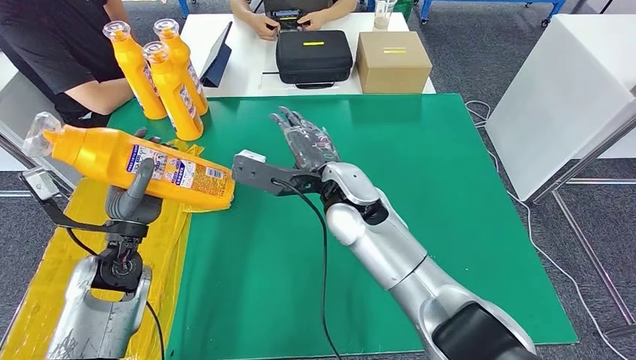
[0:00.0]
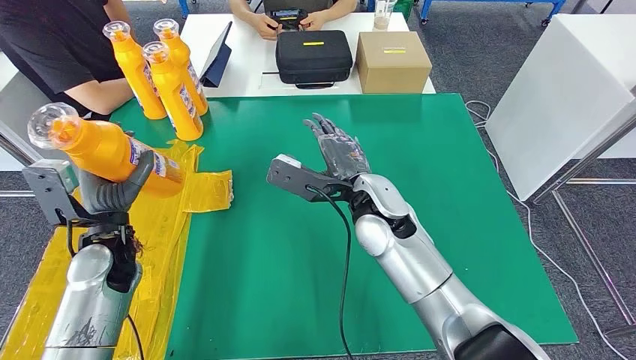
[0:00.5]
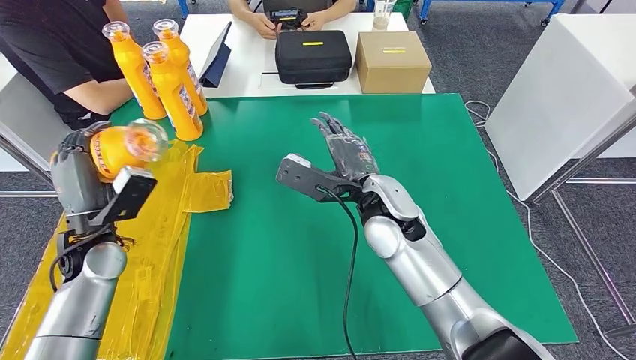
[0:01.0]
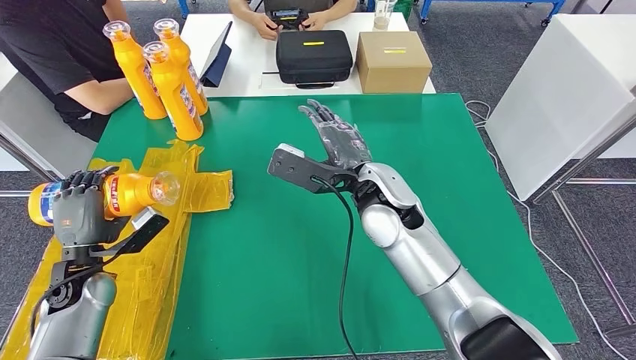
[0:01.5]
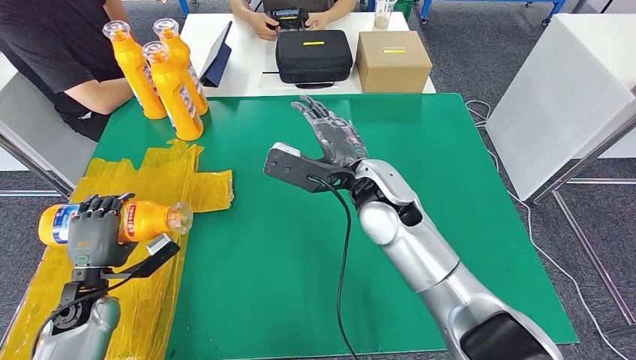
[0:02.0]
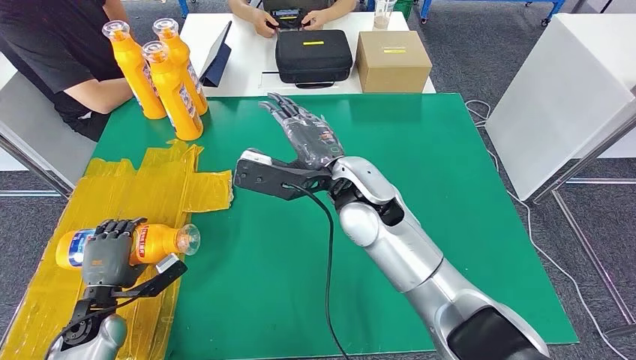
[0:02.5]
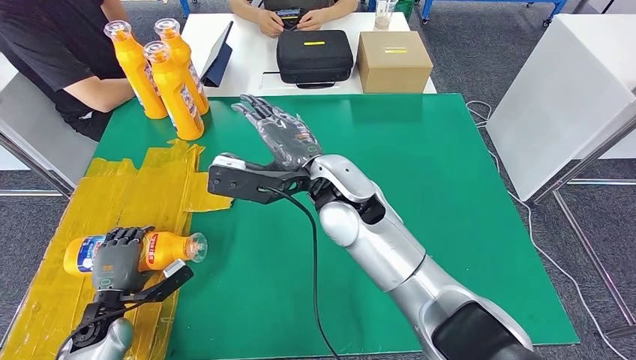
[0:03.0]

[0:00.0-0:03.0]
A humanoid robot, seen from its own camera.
Step, 0:00.0 to 0:03.0: Flip the bottle to face forward.

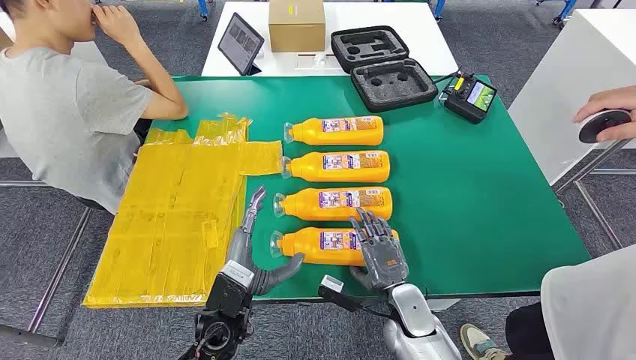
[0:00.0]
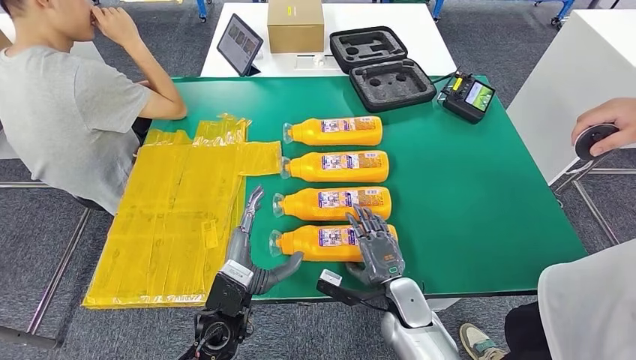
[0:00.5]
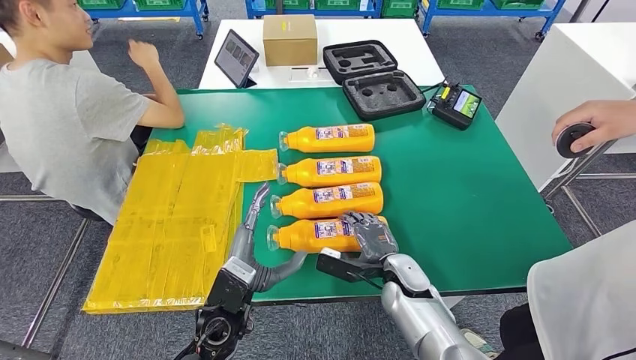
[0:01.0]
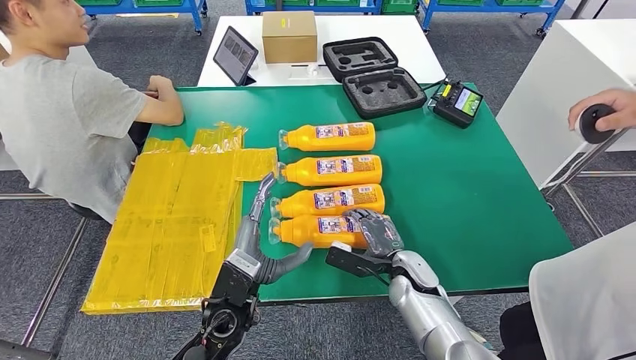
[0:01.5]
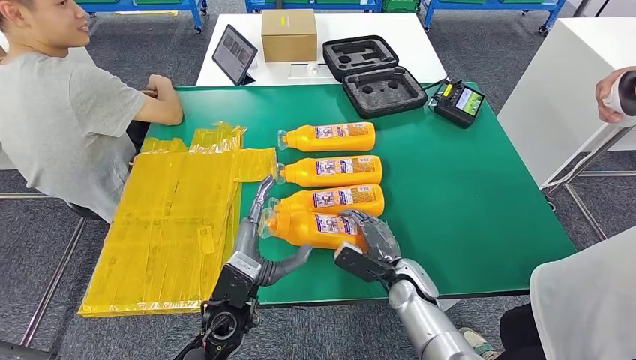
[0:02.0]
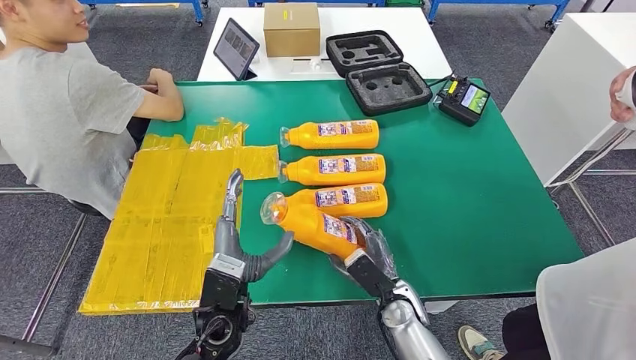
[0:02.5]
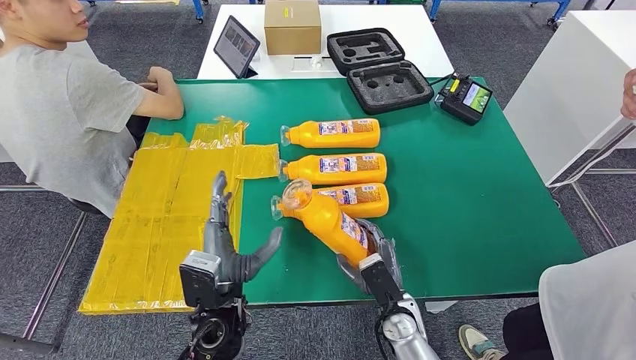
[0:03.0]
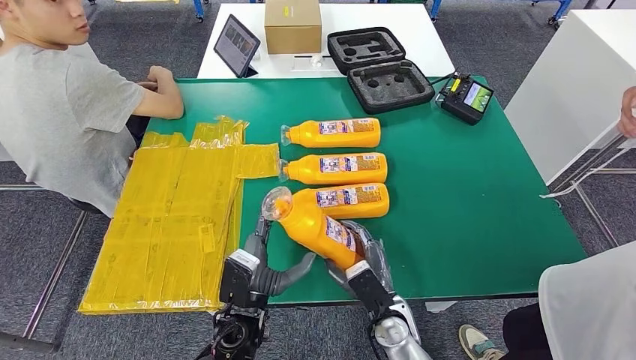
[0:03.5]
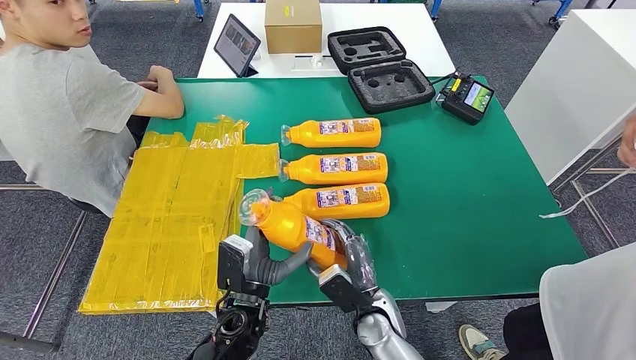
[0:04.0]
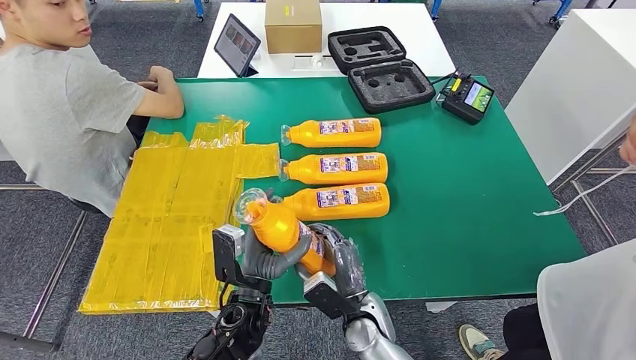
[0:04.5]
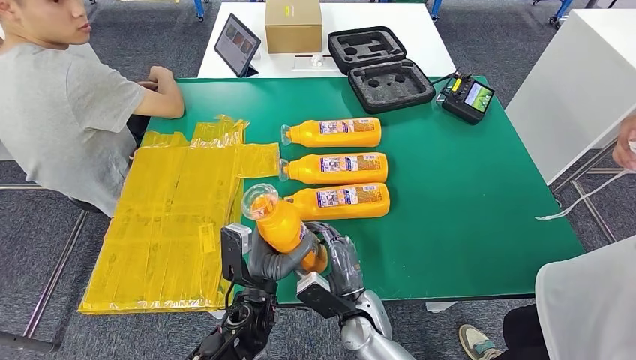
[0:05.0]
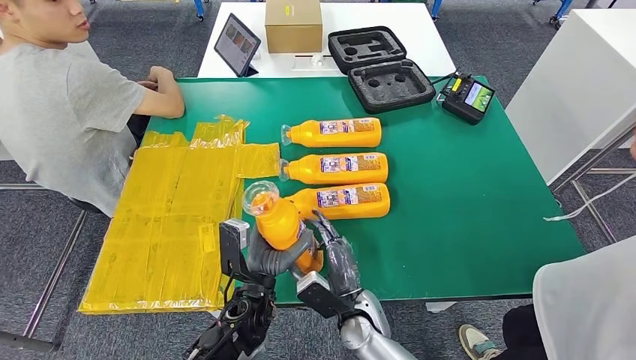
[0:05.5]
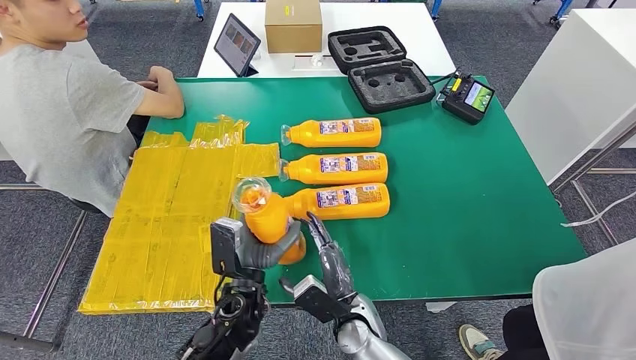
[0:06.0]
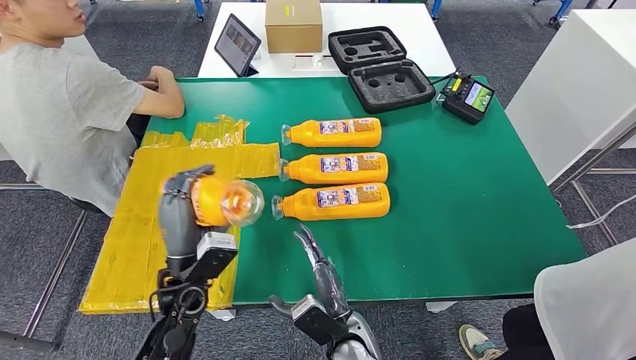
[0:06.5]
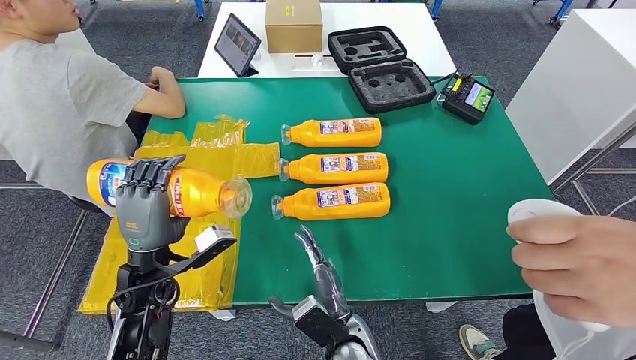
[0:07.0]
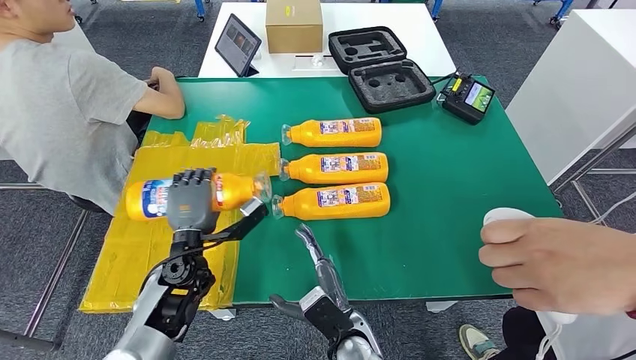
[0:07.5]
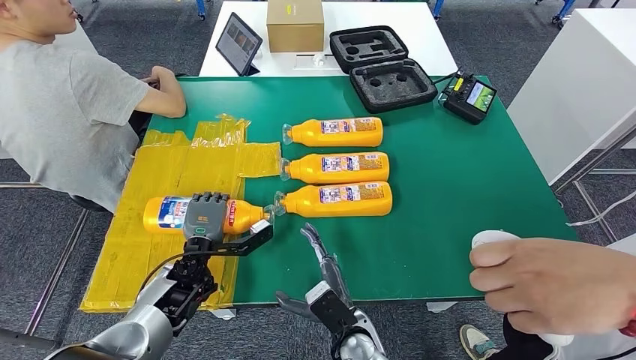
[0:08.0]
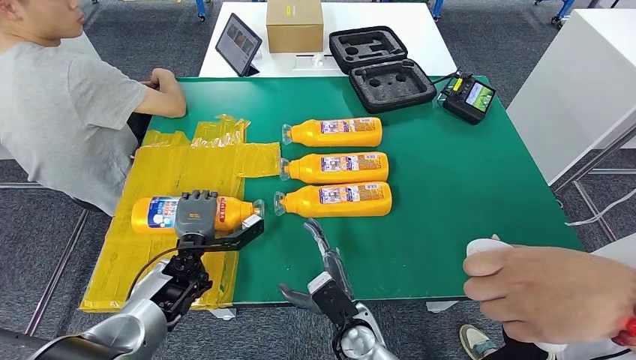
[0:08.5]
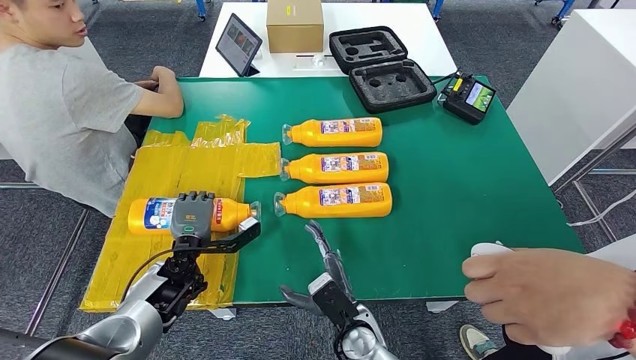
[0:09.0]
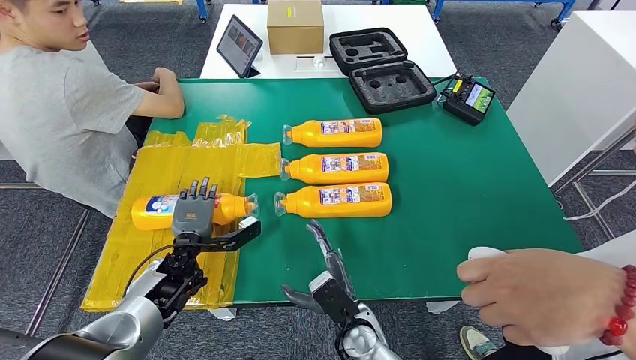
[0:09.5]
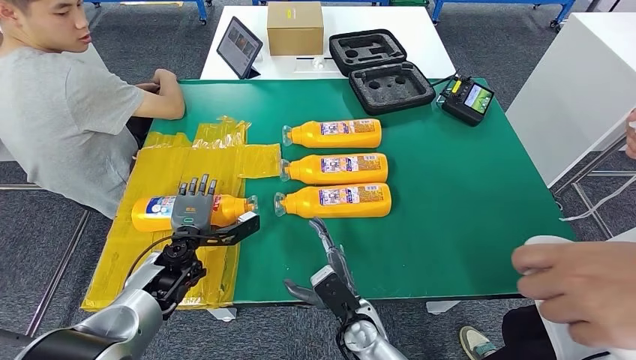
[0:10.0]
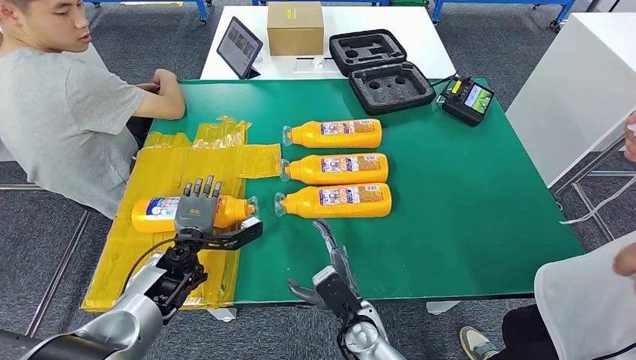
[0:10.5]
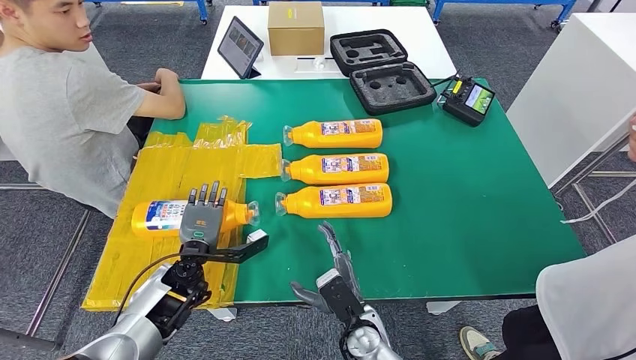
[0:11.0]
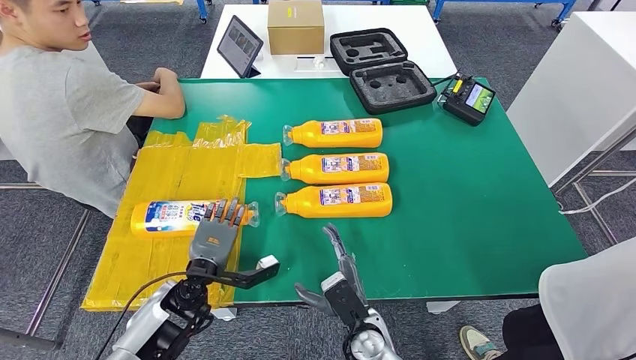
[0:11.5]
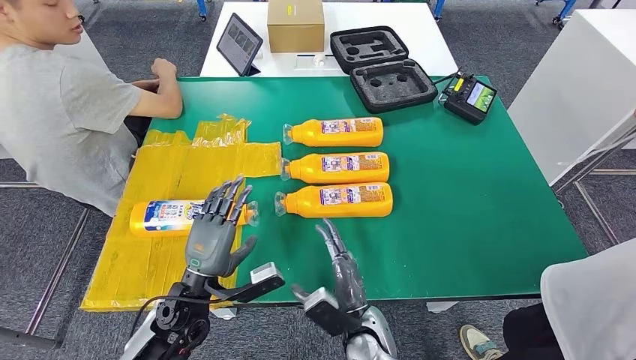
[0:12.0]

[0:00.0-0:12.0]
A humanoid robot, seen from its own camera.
Step, 0:00.0 to 0:03.5: Take the bottle from the table.
Step, 0:04.5 to 0:09.5: Flip the bottle to face forward.
0:04.0 to 0:06.0: There are only small adjustments of the hands.

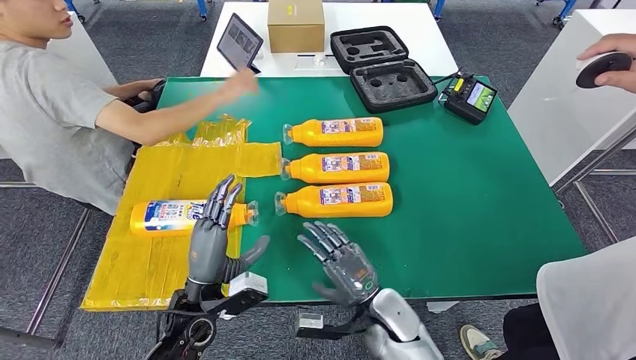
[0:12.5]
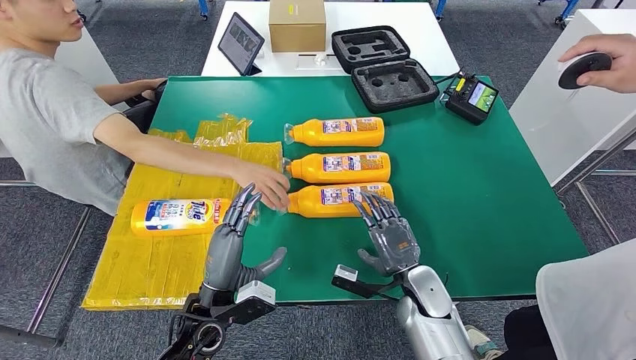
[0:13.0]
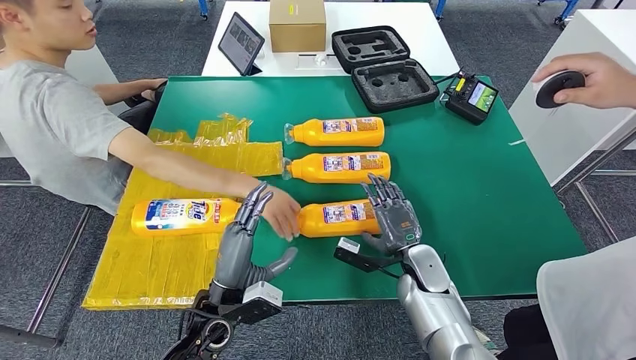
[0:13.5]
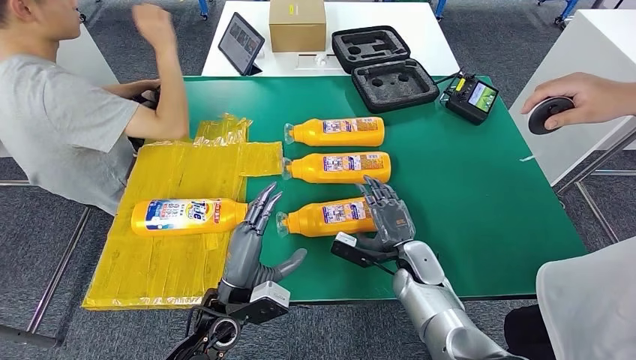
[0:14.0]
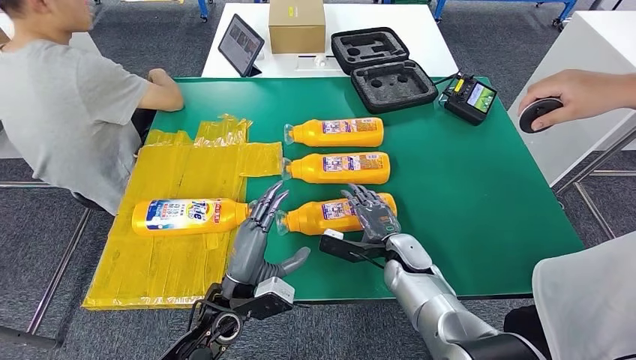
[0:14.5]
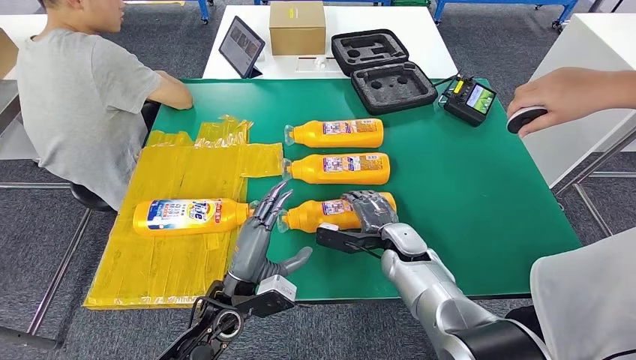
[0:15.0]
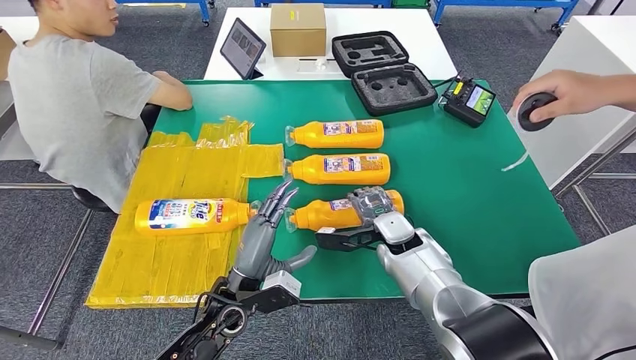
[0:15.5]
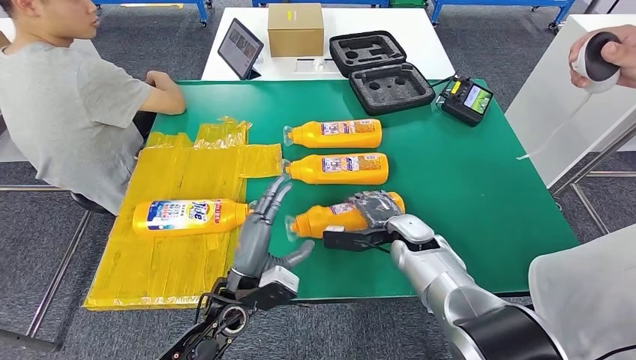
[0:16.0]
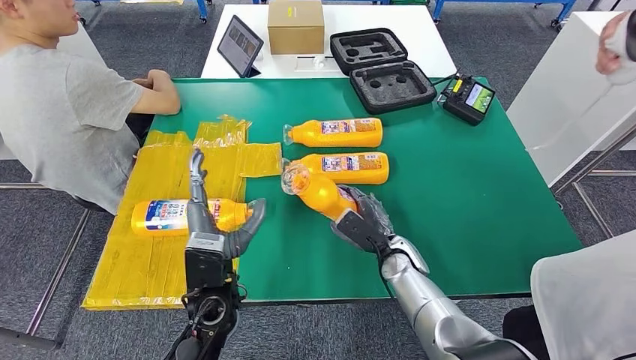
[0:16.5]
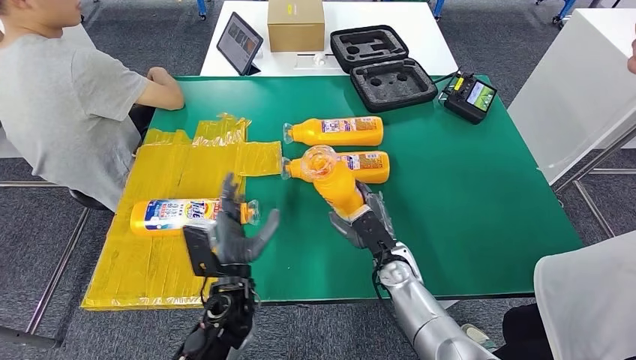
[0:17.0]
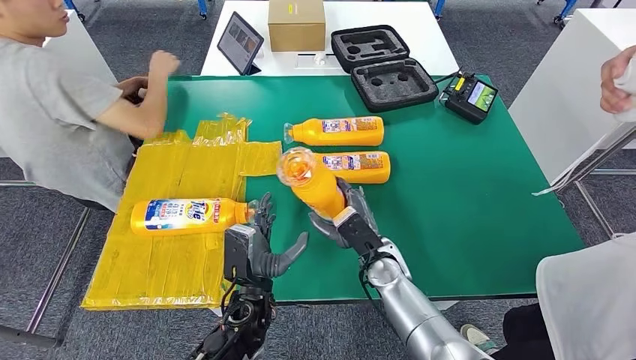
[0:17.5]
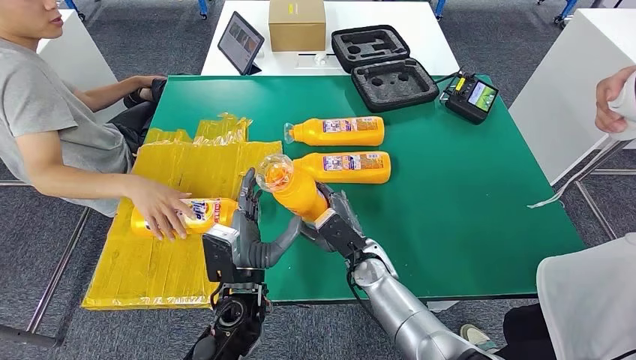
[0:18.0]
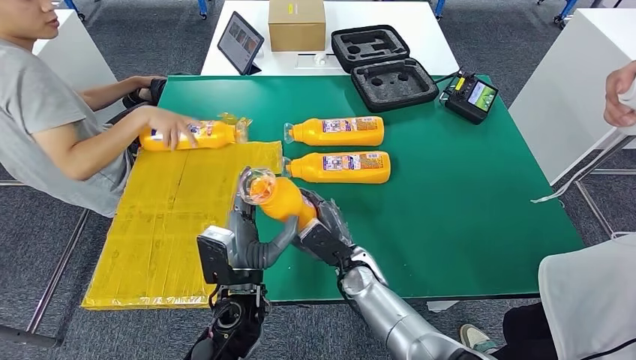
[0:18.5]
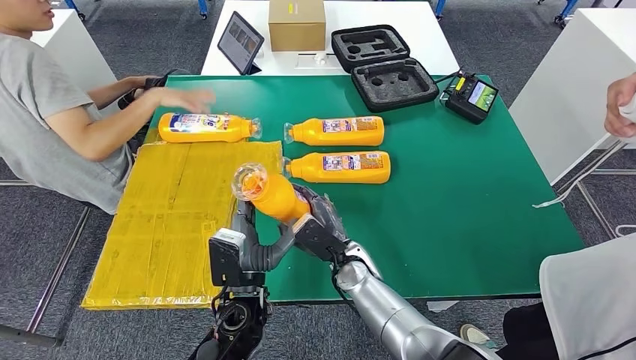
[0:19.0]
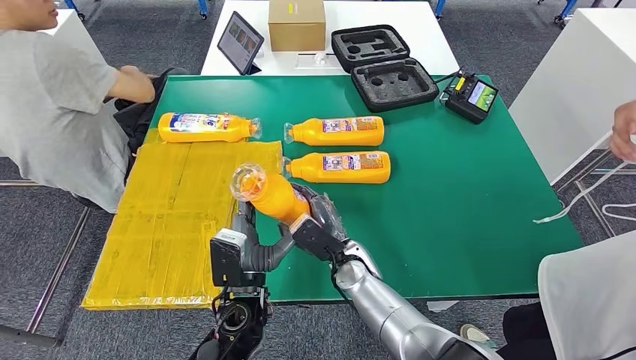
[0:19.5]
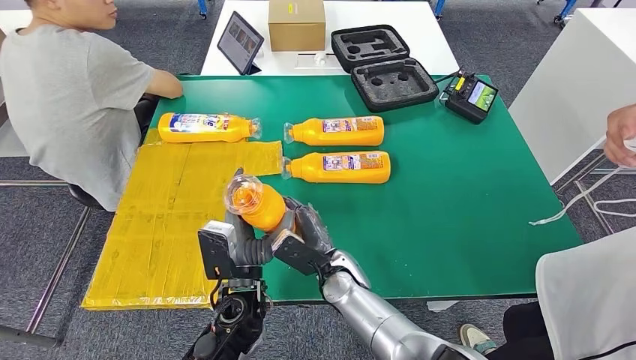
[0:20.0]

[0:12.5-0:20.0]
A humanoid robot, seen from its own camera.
Step, 0:12.5 to 0:18.0: Pick up the bottle from the table.
